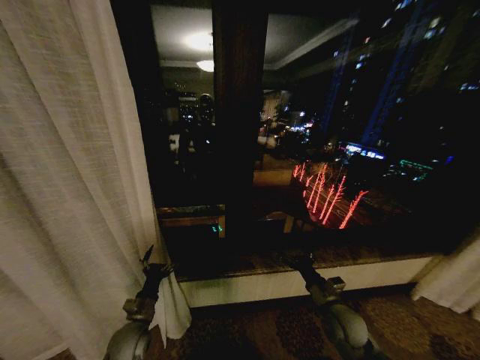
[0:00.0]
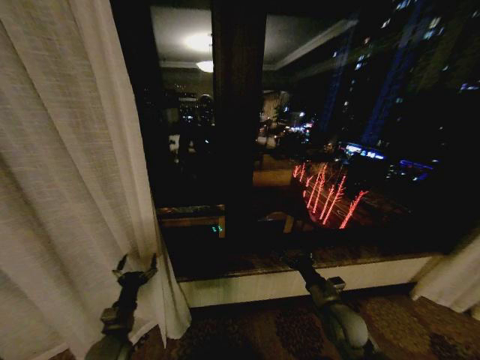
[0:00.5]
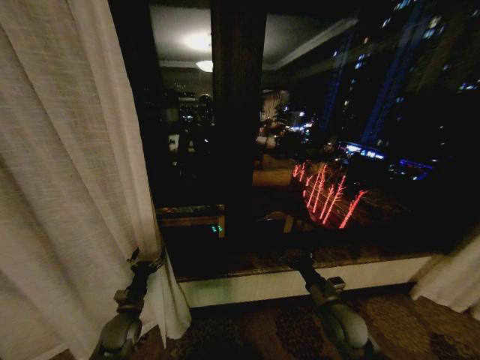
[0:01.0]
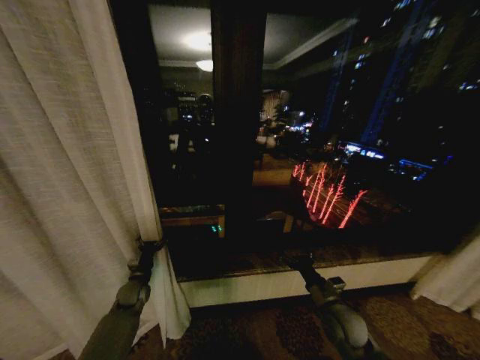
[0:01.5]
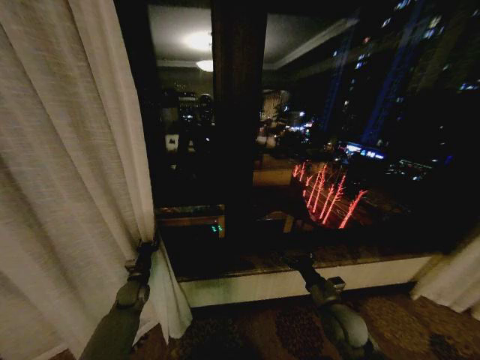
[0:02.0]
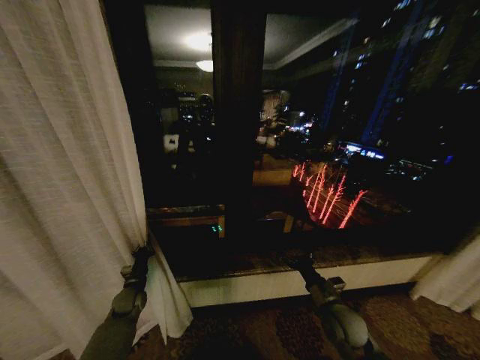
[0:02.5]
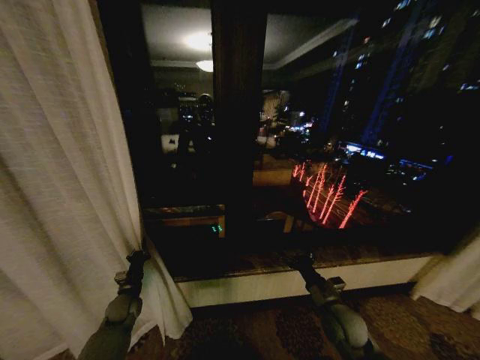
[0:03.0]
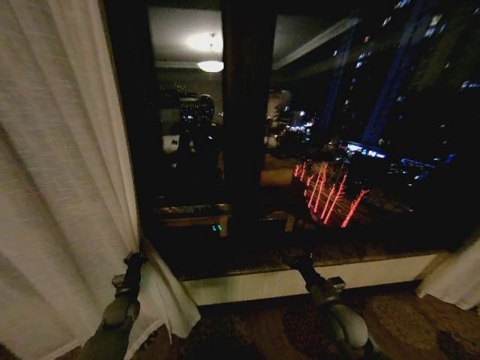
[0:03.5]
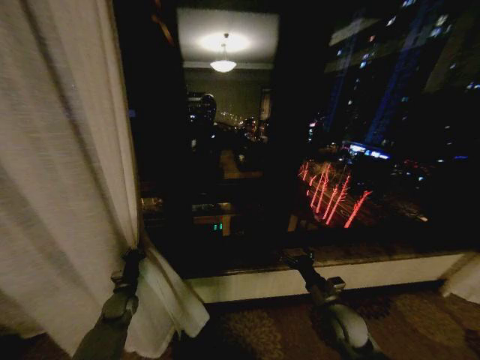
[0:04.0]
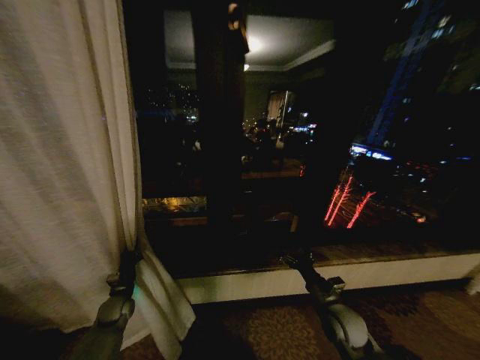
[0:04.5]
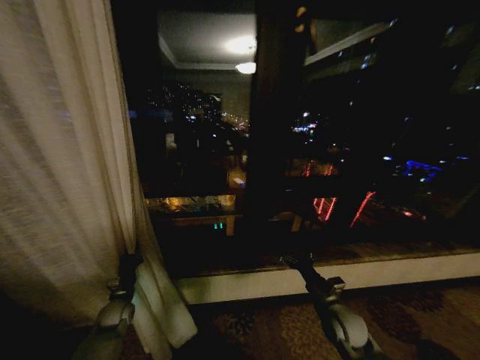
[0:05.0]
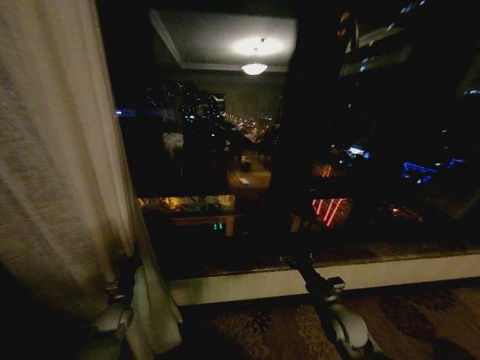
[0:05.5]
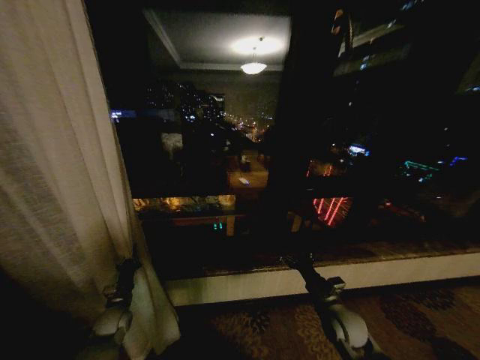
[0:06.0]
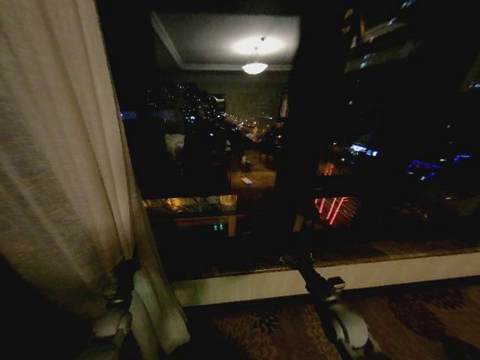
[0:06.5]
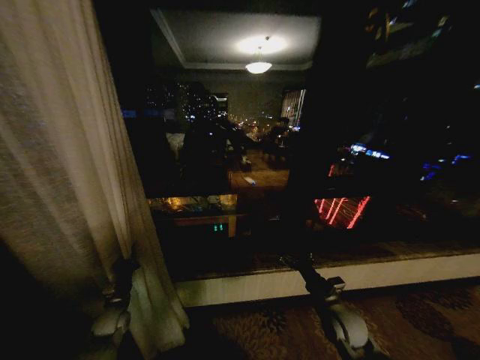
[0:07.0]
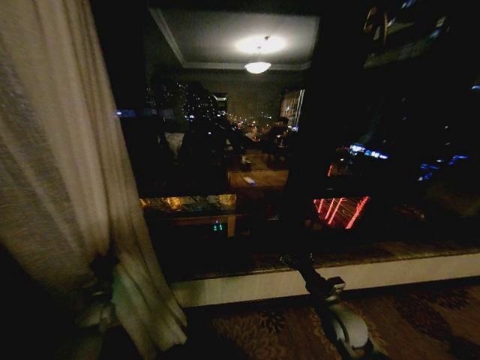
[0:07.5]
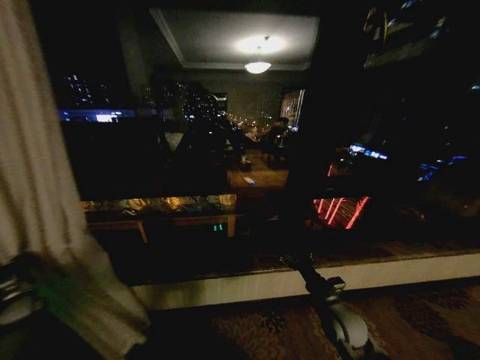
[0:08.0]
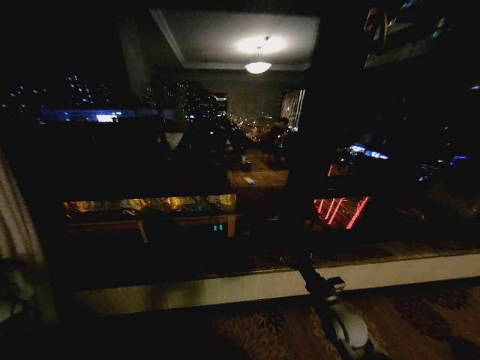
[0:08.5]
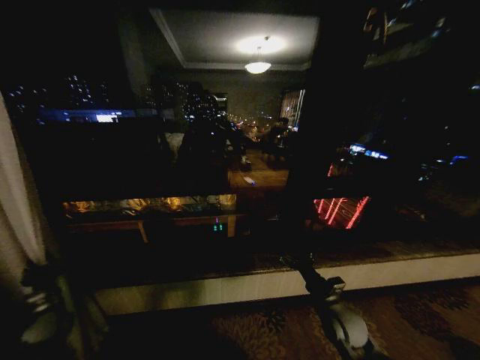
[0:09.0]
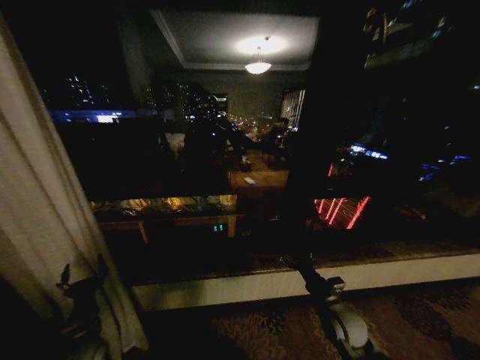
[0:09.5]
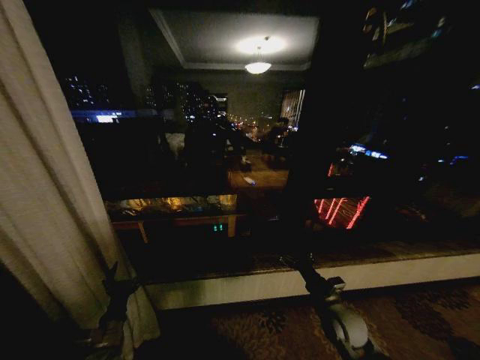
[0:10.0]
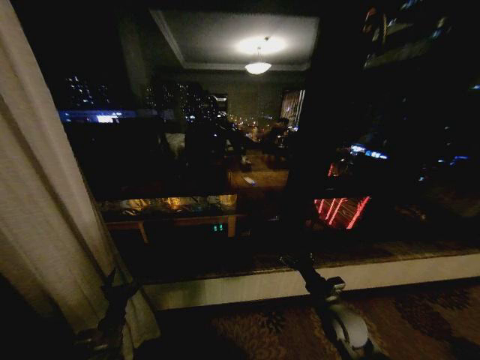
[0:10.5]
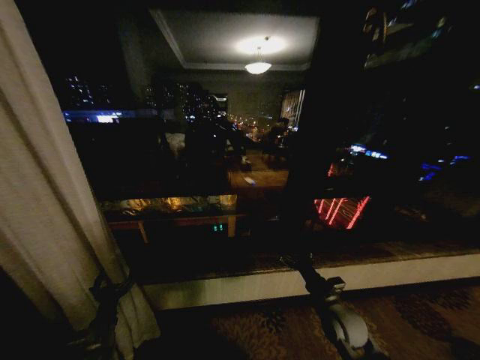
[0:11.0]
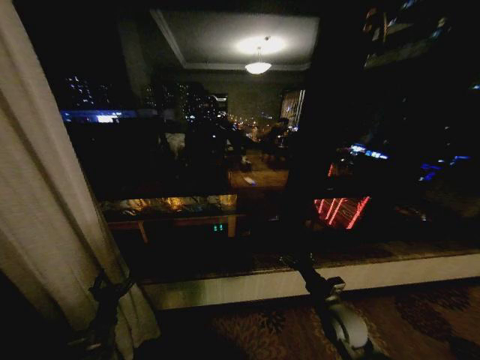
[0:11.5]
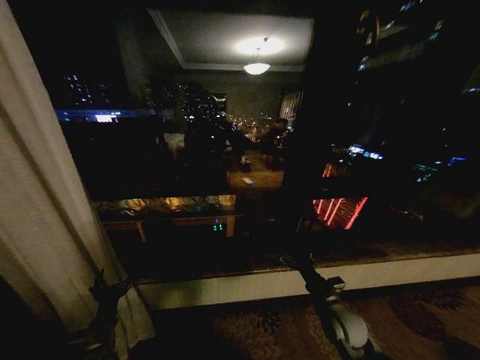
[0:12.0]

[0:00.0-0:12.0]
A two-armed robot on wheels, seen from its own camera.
Task of the whole recording: Open the curtains by pulling them apart, changing their state from closed to fully open.
0:00.0 to 0:02.0: The left gripper travels forward and to the left by approximately 15 cm, and closes.
0:02.0 to 0:04.0: The left gripper closes up.
0:06.0 to 0:08.0: The left gripper travels to the left by some 30 cm.
0:08.0 to 0:10.0: The left gripper goes about 30 cm to the right, and opens.
0:10.0 to 0:12.0: The grippers stay close to where they were, moving slightly.

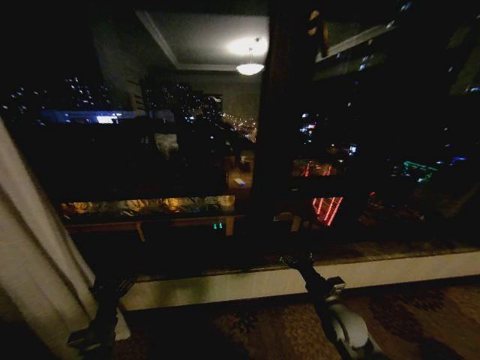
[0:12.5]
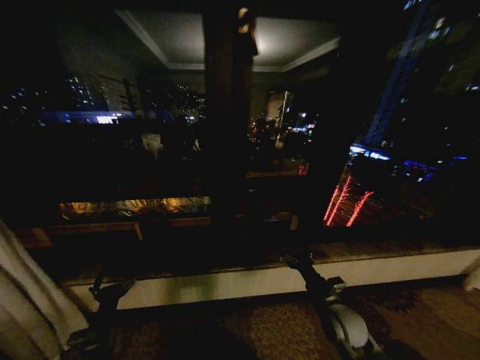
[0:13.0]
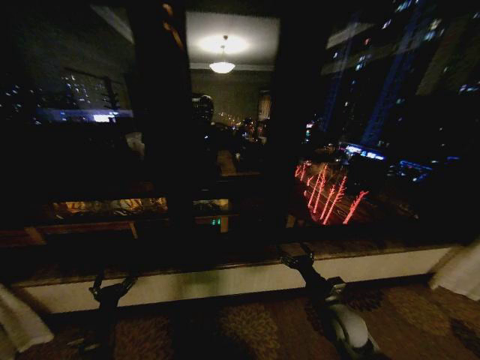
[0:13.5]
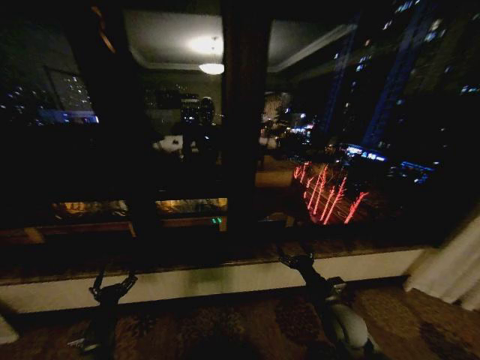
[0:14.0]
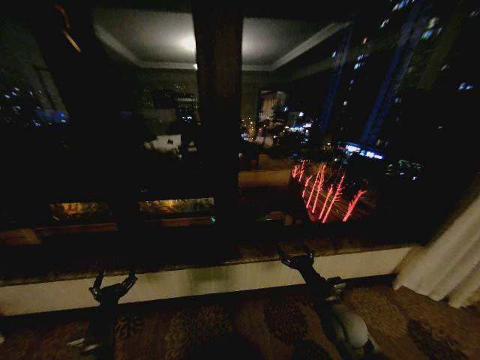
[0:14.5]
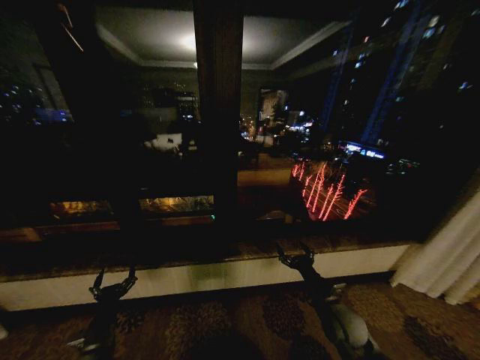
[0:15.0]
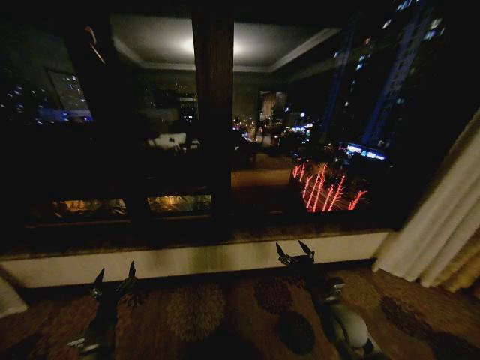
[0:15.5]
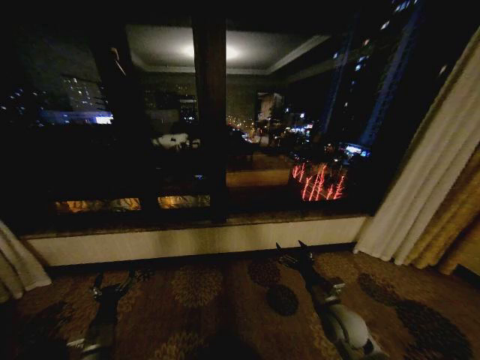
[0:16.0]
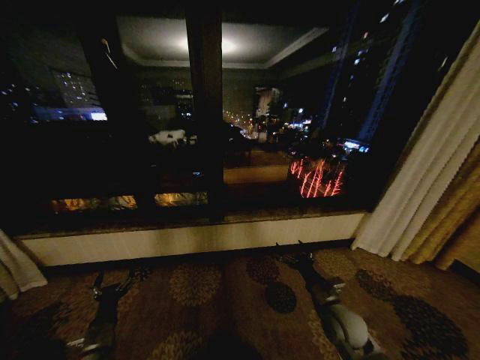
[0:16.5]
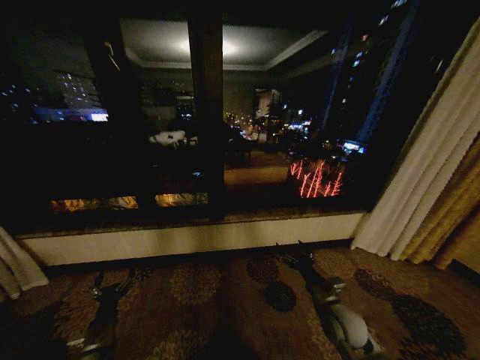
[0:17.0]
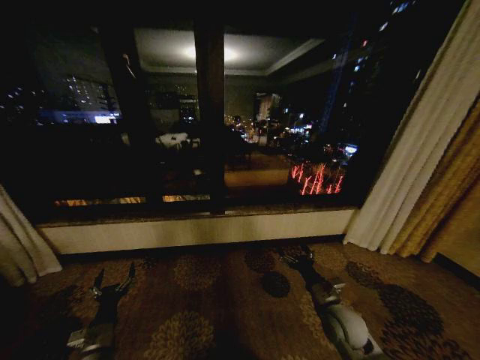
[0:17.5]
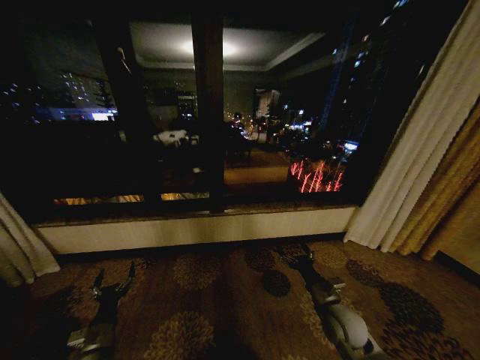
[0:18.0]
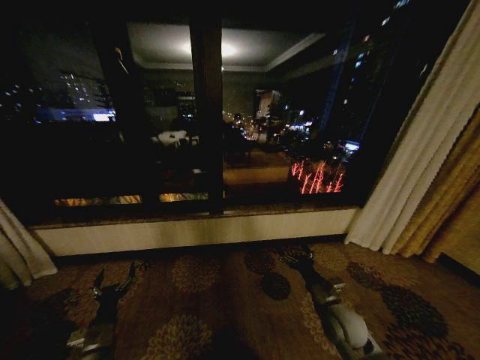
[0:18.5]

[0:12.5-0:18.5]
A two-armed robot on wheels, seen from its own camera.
Task of the whole recording: Open the curtains by pulling them apart, changing their state from closed to fully open.
0:16.5 to 0:18.5: Both grippers stay put.

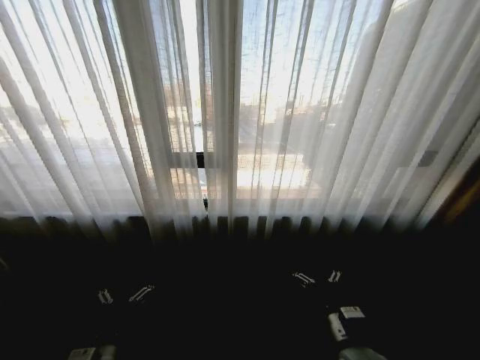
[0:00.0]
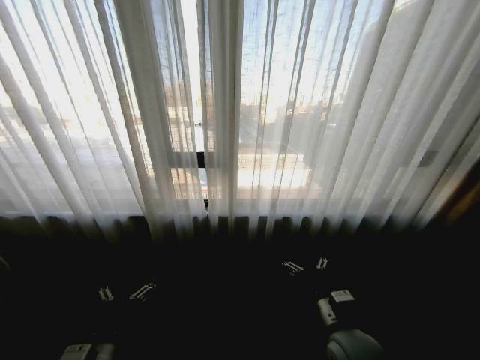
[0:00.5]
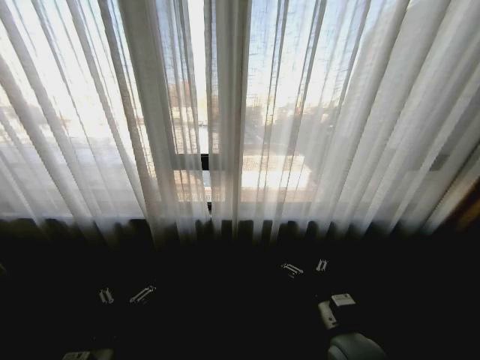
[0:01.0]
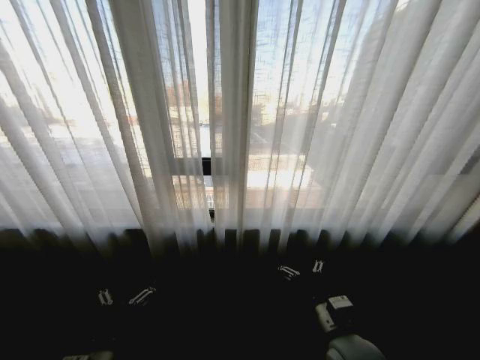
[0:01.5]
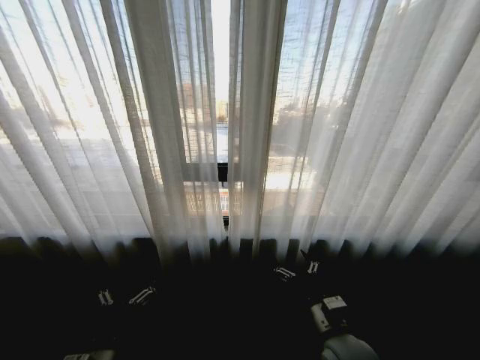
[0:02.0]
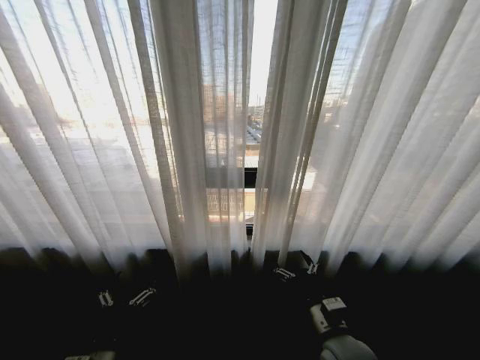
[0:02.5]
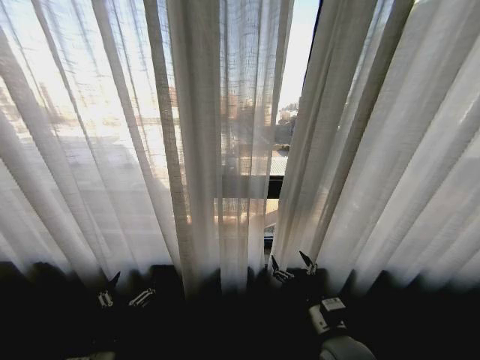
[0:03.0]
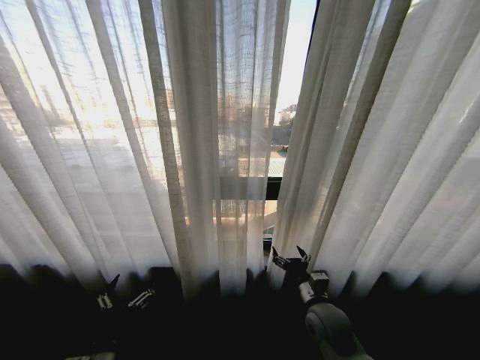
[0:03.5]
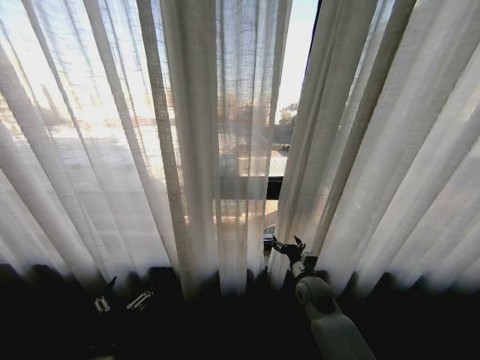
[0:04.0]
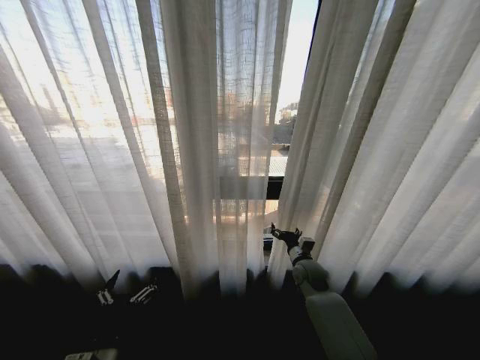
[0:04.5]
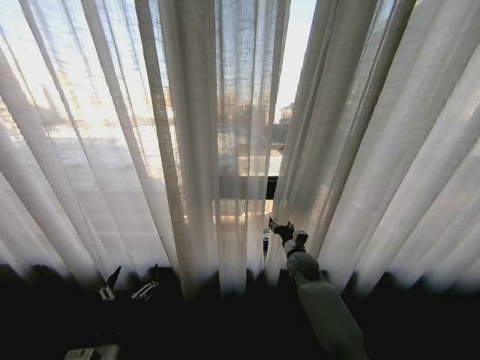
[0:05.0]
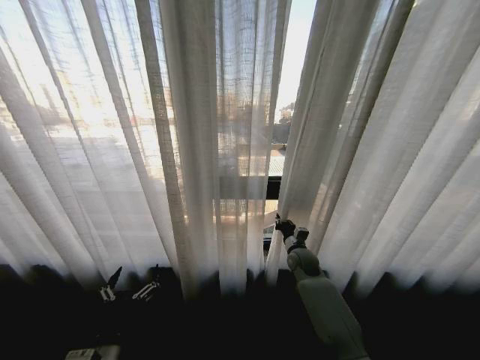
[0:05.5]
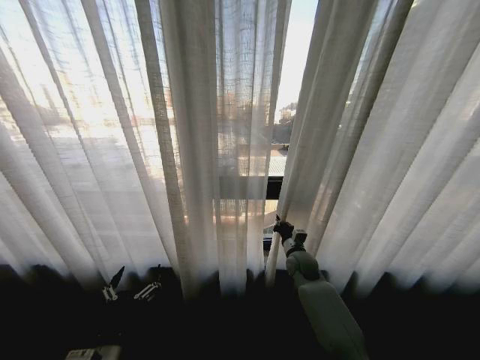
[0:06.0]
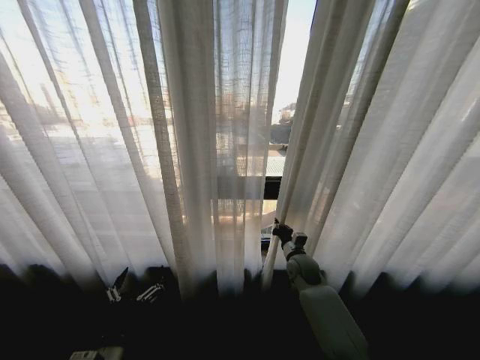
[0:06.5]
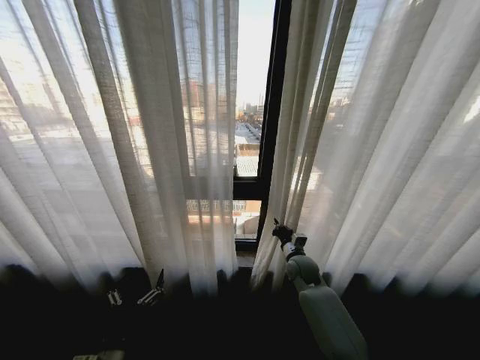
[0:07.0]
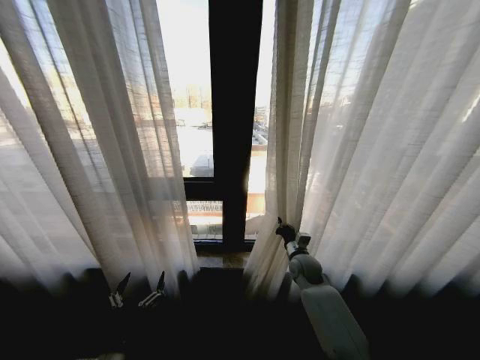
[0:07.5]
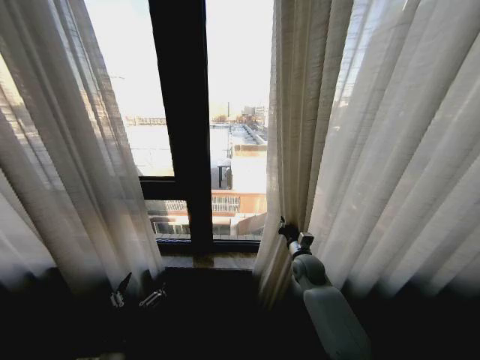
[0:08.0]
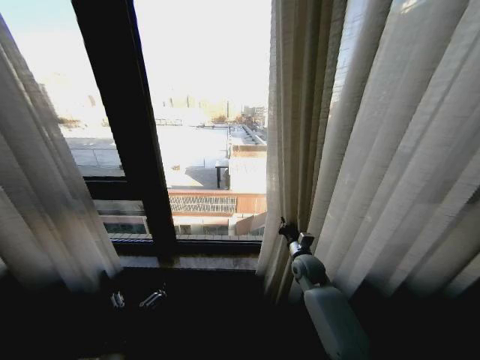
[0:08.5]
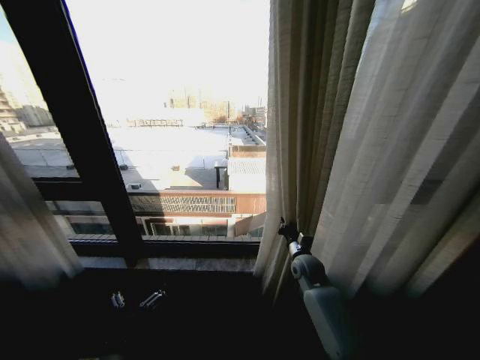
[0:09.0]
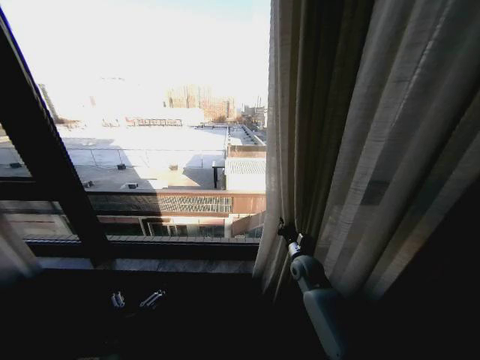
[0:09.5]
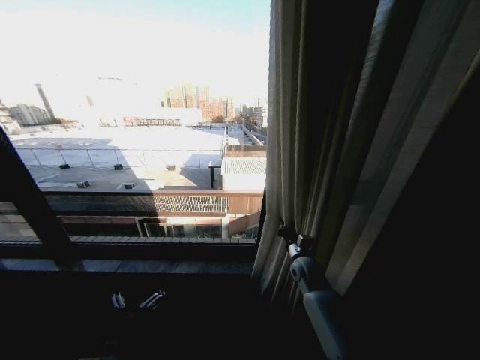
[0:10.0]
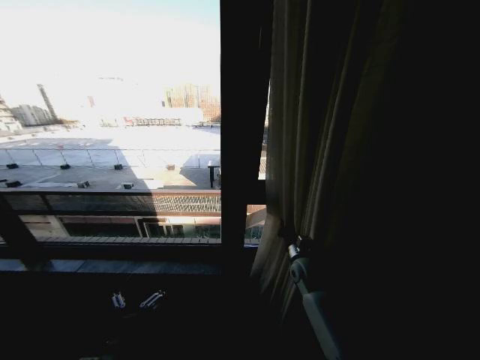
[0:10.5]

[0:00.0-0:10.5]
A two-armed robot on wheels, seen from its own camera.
Task of the whole recording: Open the curtains by pulling them apart, changing their state from closed to fully open.
0:02.0 to 0:04.0: The right gripper shifts some 15 cm forward.
0:04.0 to 0:06.5: The right gripper shifts about 5 cm forward, and closes.
